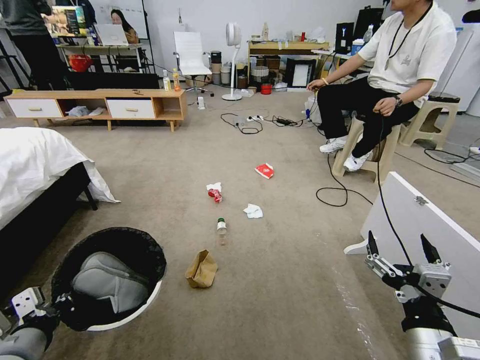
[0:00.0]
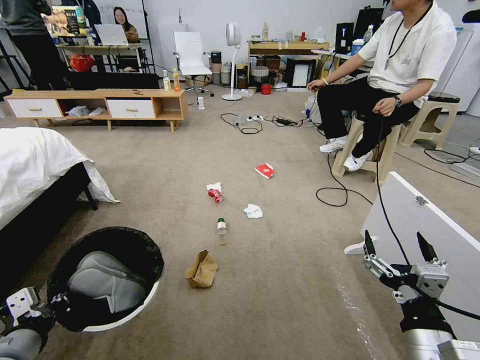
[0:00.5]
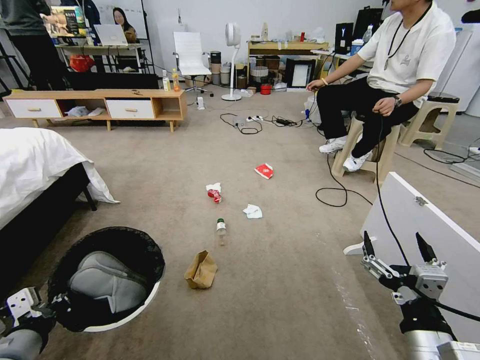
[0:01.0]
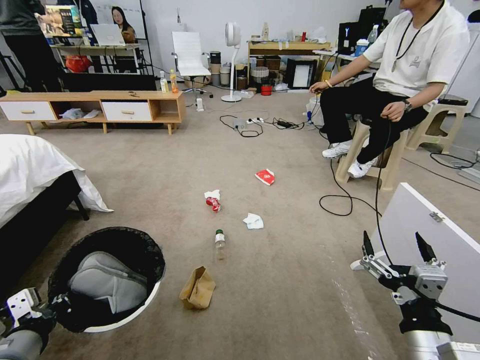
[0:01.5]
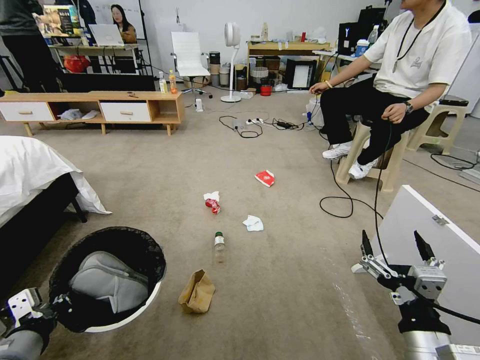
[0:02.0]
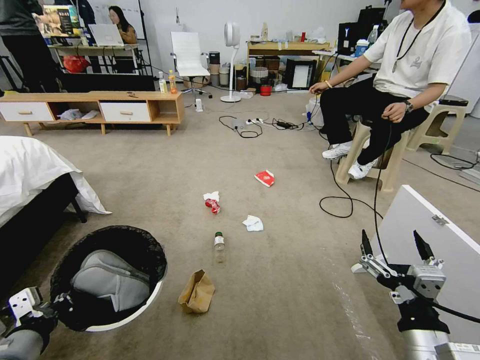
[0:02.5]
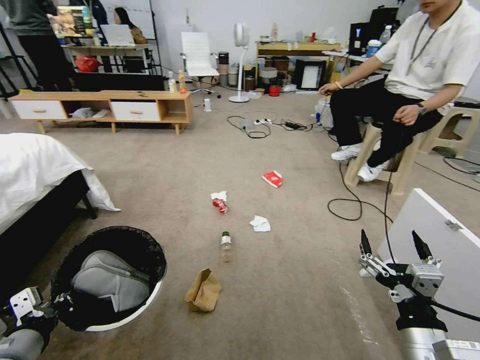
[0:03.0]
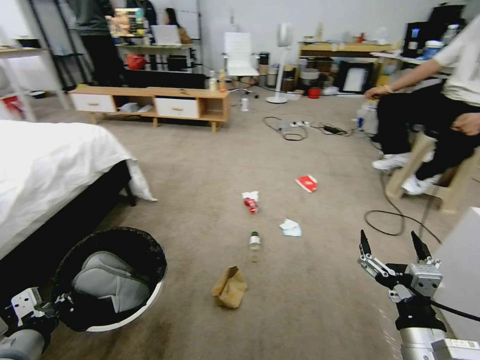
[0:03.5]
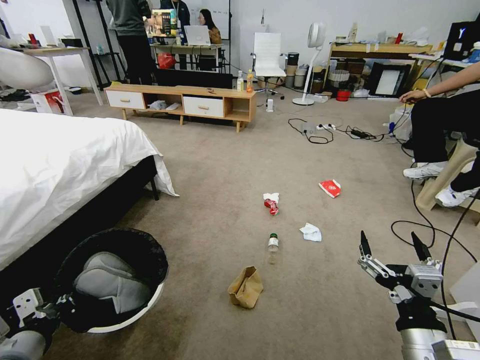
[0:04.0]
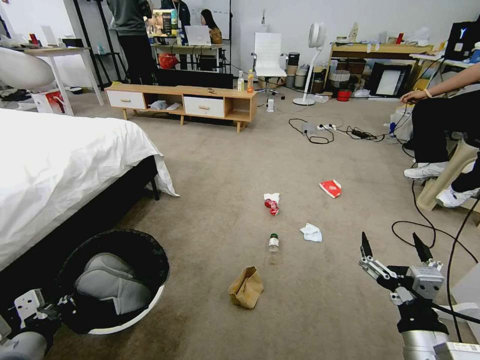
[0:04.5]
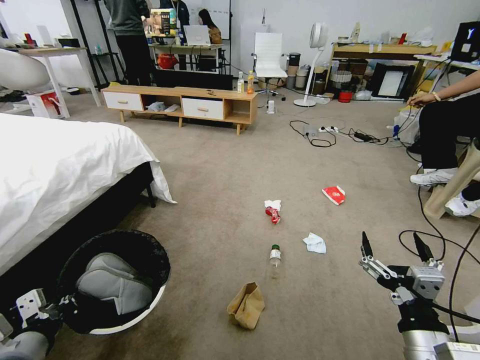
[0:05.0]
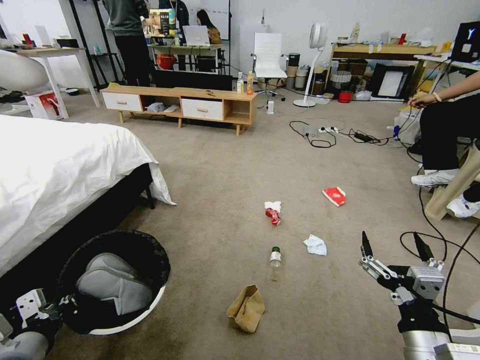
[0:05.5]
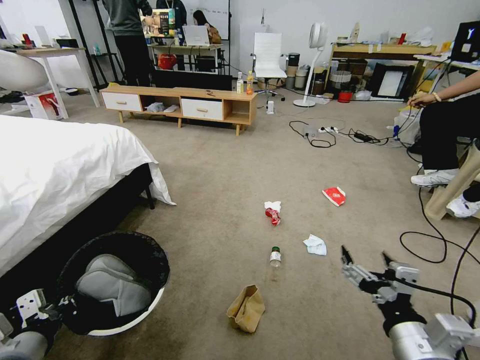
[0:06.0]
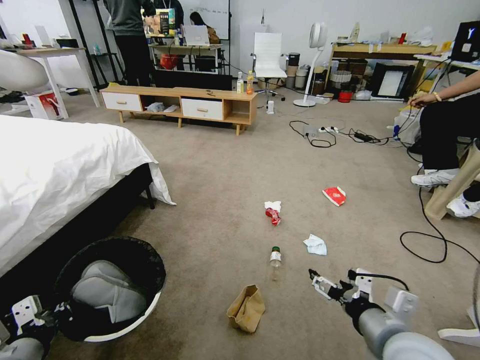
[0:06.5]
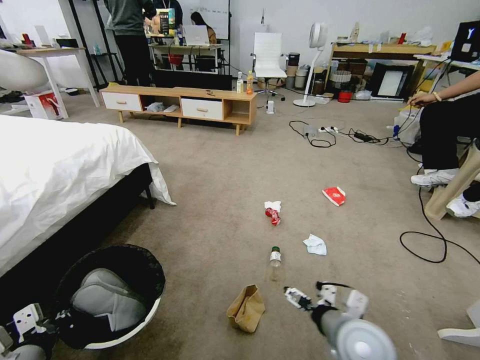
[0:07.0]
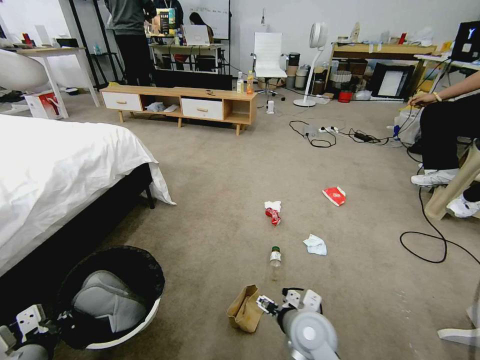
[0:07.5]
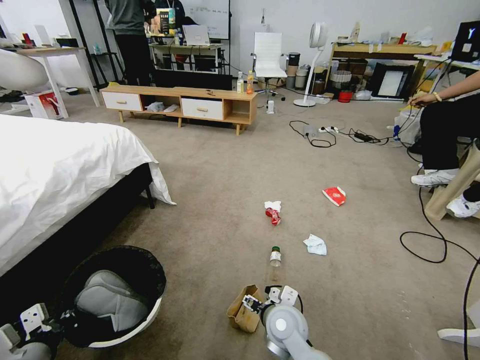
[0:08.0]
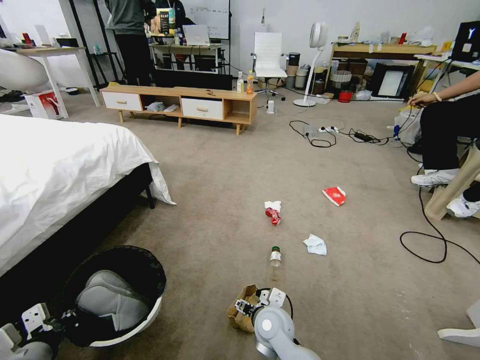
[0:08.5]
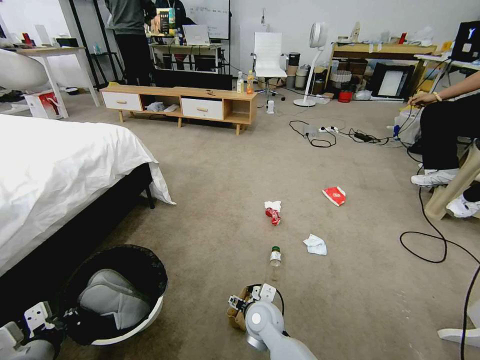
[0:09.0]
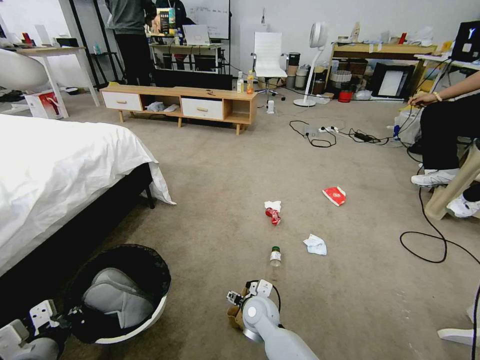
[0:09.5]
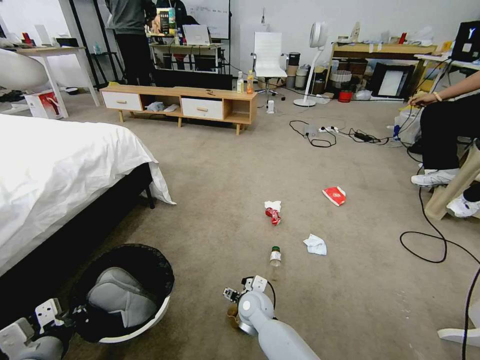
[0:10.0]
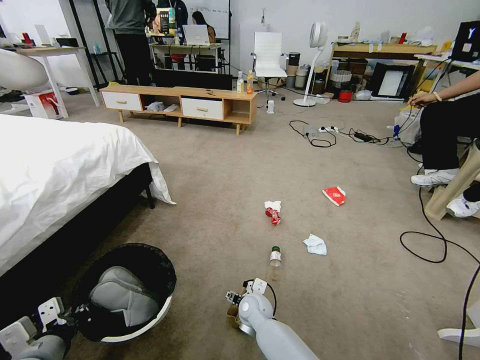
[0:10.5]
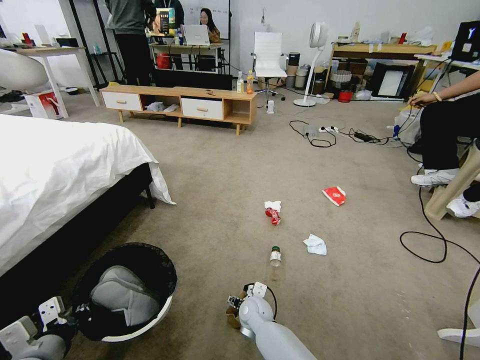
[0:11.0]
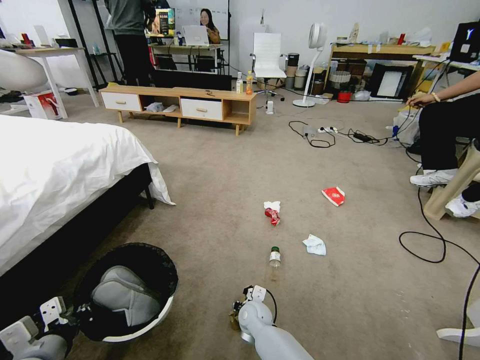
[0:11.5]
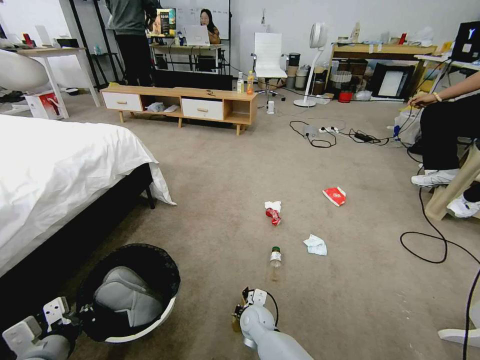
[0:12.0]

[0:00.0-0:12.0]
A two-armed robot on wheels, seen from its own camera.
Task of the whole recording: Pick up the trash bin and place the garbage on the floor into it.
0:06.0 to 0:08.0: The right gripper shifts about 30 cm to the left, forward and downward.
0:08.0 to 0:10.0: The right gripper goes approximately 10 cm forward, downward and to the left.
0:10.0 to 0:12.0: The right gripper moves downward, approximately 5 cm, and closes its fingers.

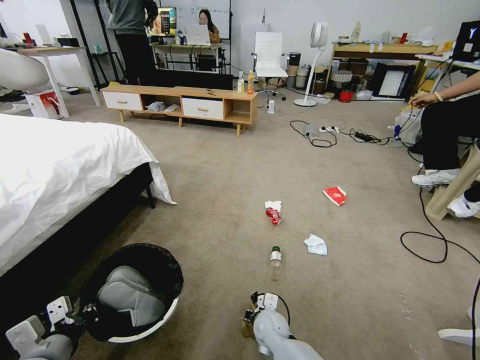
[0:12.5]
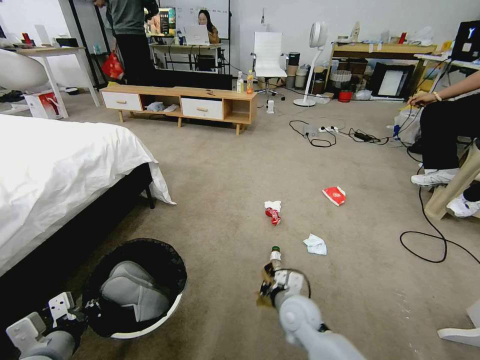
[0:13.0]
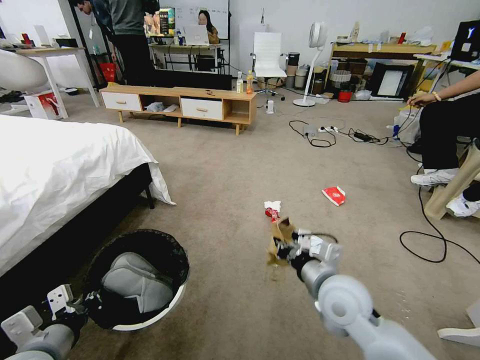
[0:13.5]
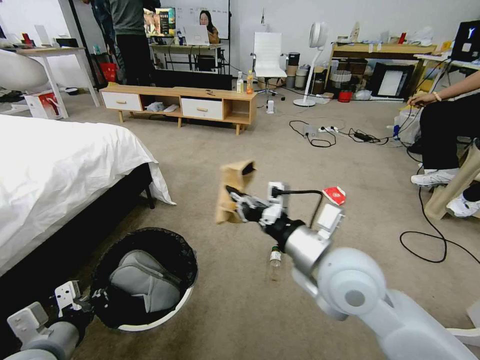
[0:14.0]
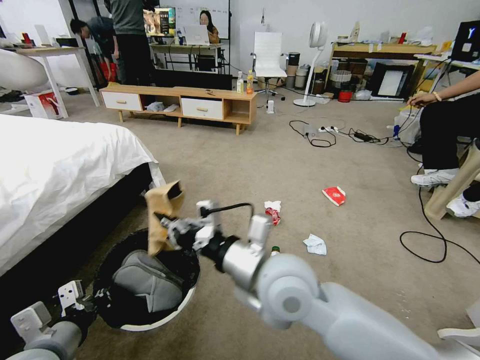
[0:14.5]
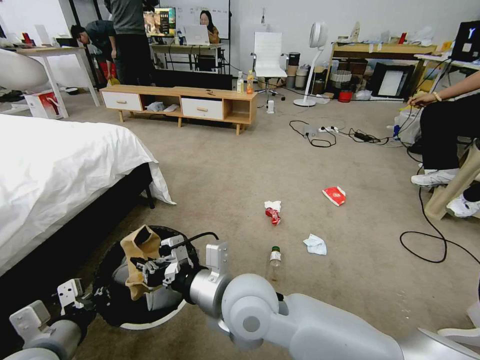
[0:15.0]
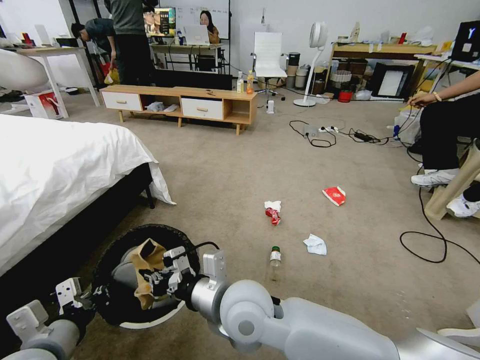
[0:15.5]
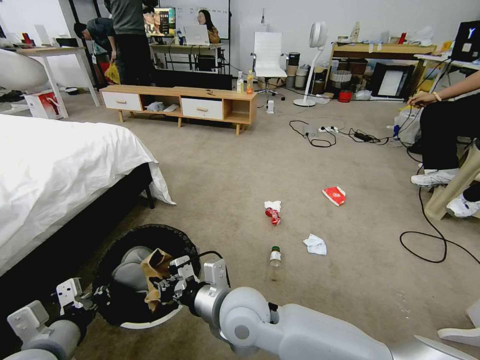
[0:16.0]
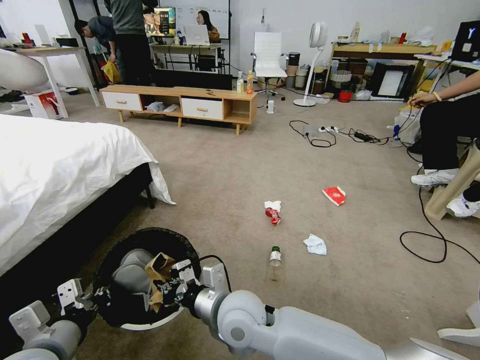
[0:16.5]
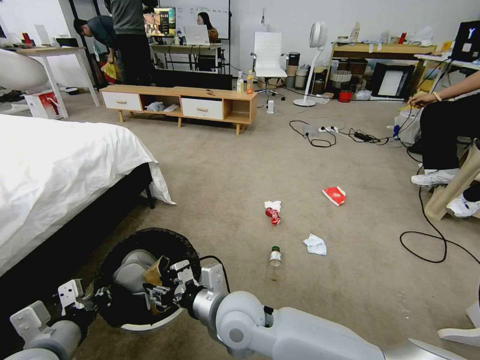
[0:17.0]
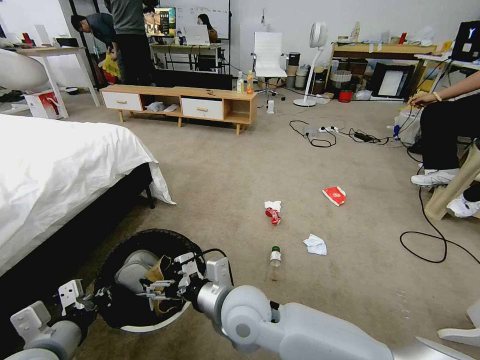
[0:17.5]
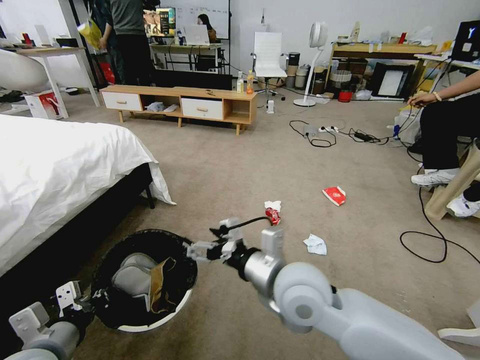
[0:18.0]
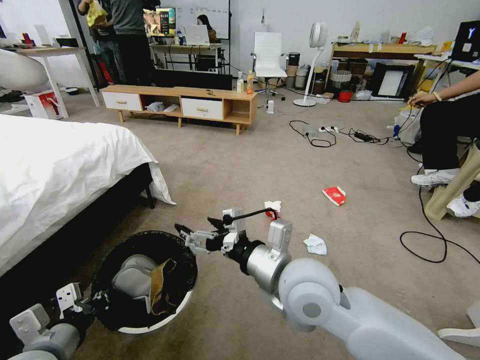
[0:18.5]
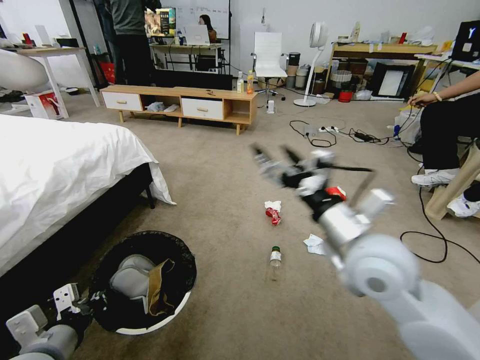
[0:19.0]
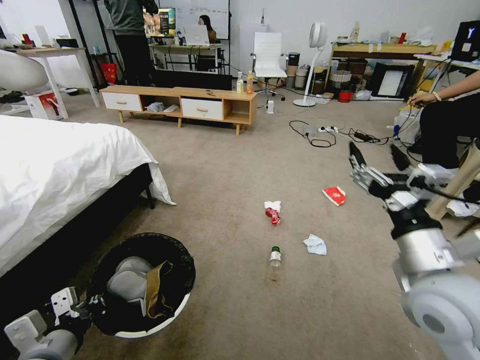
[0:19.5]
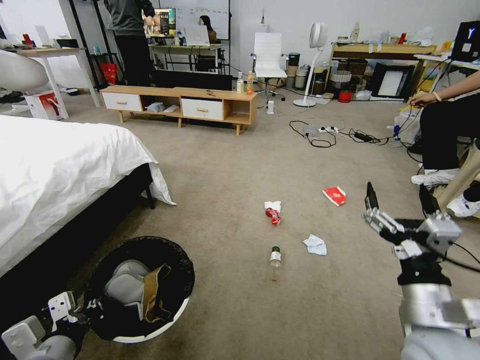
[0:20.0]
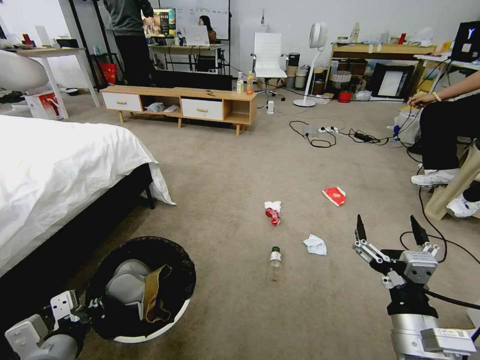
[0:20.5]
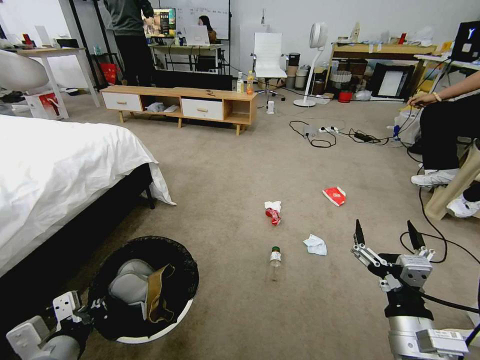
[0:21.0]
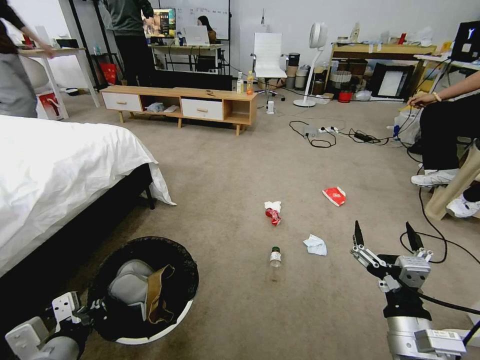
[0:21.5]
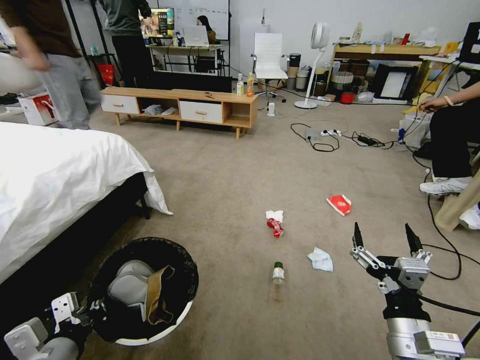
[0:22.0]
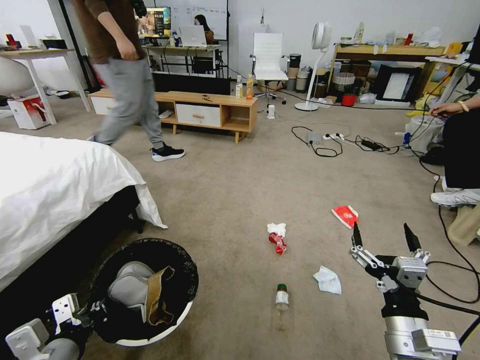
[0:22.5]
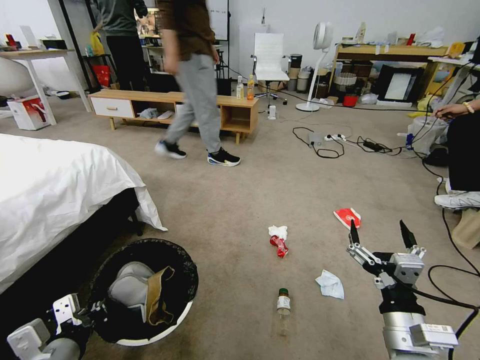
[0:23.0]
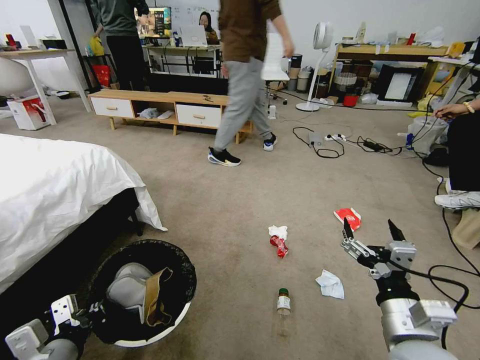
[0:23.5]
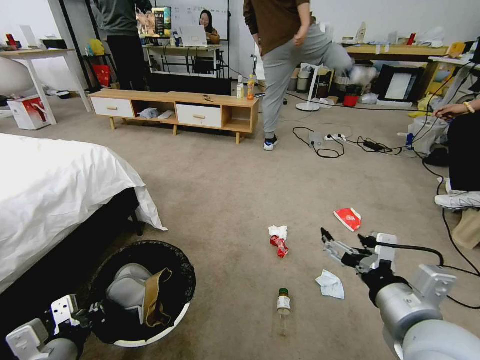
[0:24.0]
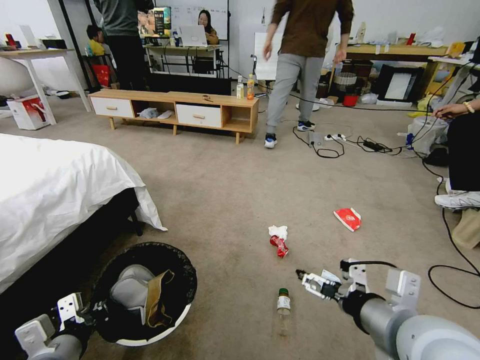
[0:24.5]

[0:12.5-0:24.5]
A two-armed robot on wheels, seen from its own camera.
Task of the whole recording: Pick up the trash bin and place the garbage on the floor into it.
0:12.5 to 0:14.5: The left gripper ends up roughly 5 cm from where it was, while the right gripper shifts roughly 35 cm upward.
0:14.5 to 0:16.5: The right gripper shifts approximately 15 cm downward and to the left.
0:16.5 to 0:18.5: The right gripper goes approximately 15 cm upward and to the right, and opens up.
0:18.5 to 0:20.5: The right gripper goes some 20 cm to the right, backward and downward.
0:22.5 to 0:24.5: The right gripper goes approximately 10 cm upward.

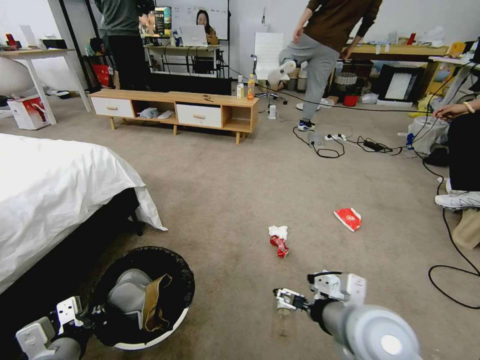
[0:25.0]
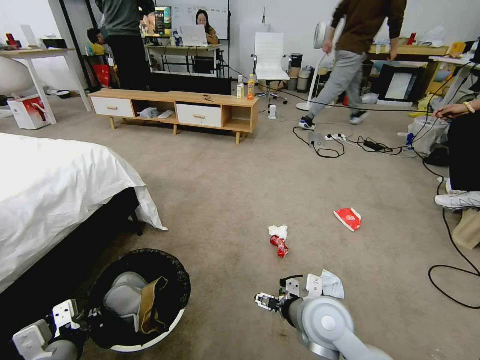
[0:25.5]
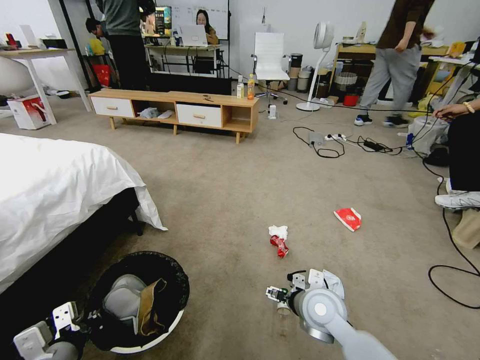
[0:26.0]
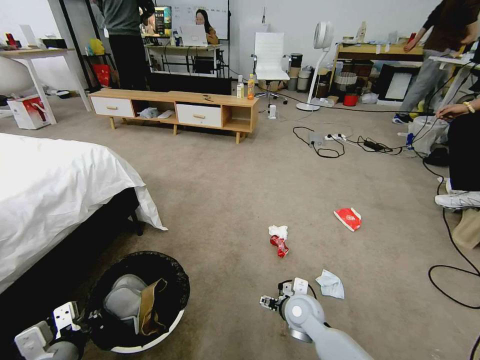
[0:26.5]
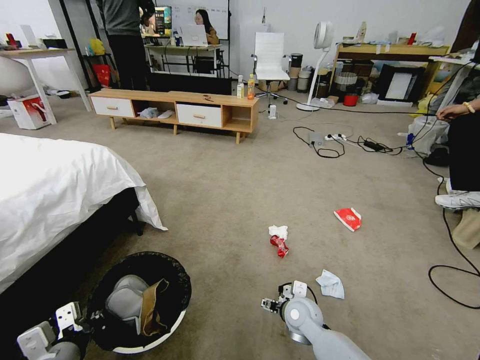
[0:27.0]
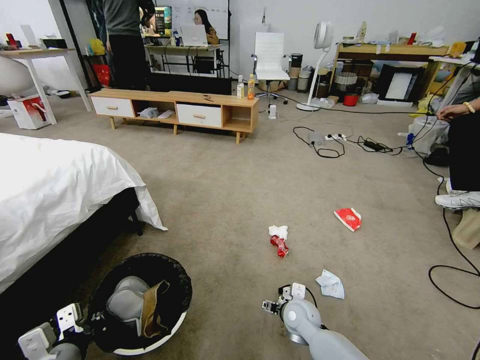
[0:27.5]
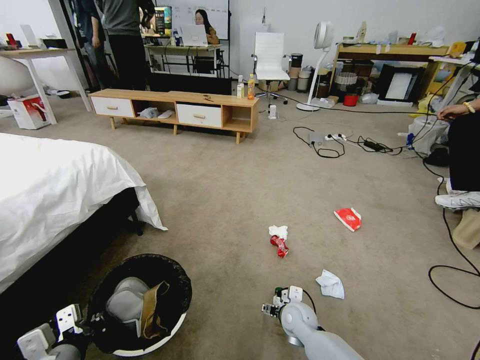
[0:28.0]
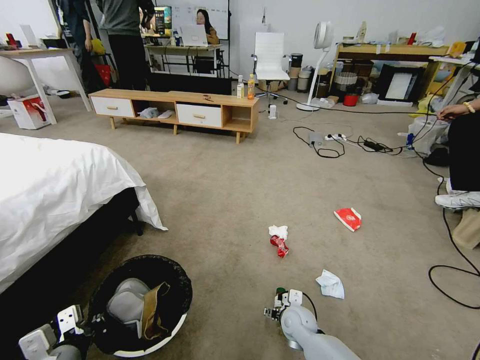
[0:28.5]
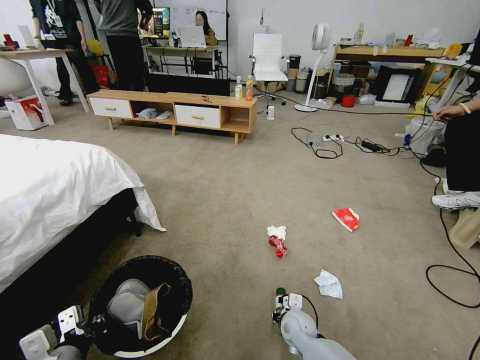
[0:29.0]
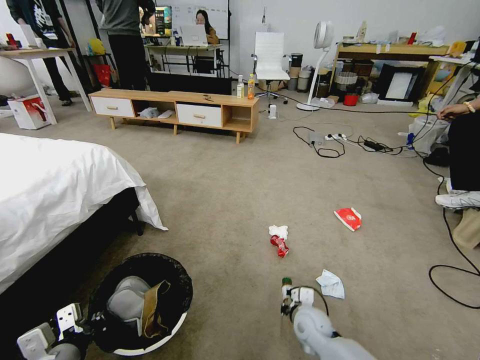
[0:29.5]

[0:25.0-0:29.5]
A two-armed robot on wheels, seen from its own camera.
Task of the whole recording: Pick up the trash bin and place the garbage on the floor into it.
0:25.0 to 0:27.0: The right gripper moves downward and forward, some 25 cm.
0:27.0 to 0:29.5: The right gripper closes.
